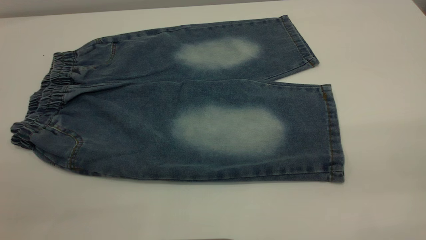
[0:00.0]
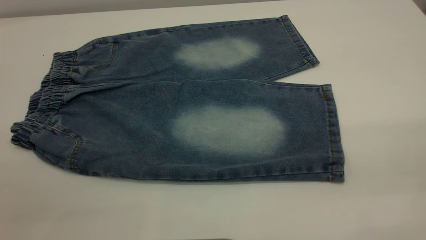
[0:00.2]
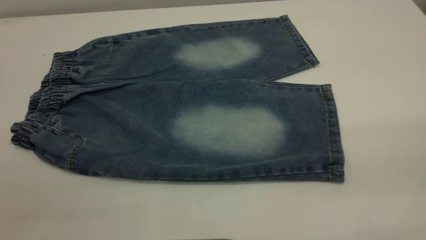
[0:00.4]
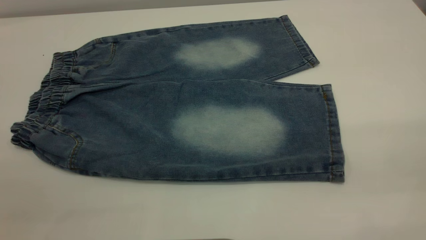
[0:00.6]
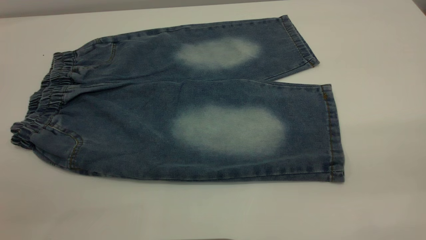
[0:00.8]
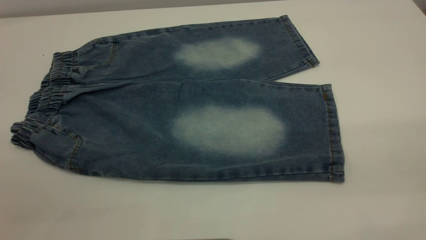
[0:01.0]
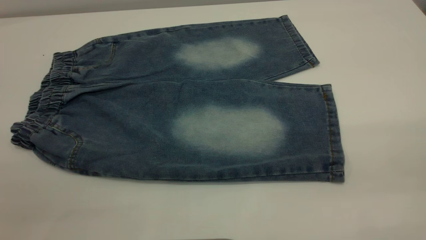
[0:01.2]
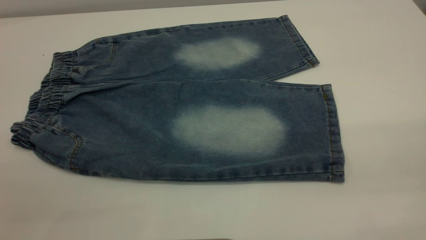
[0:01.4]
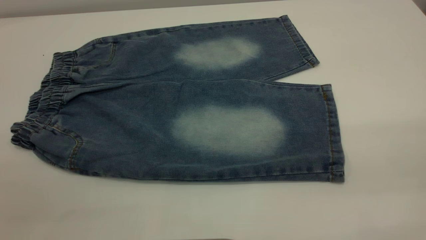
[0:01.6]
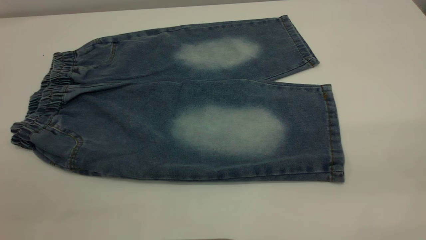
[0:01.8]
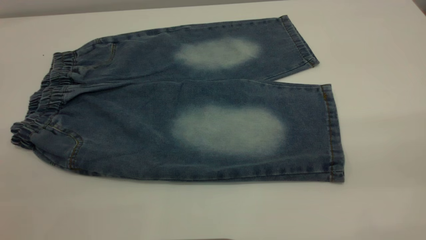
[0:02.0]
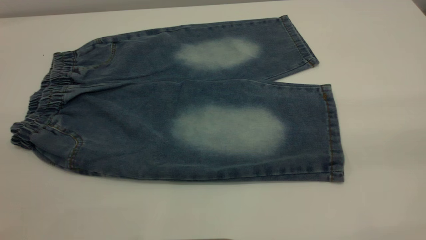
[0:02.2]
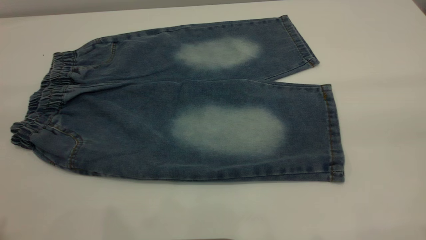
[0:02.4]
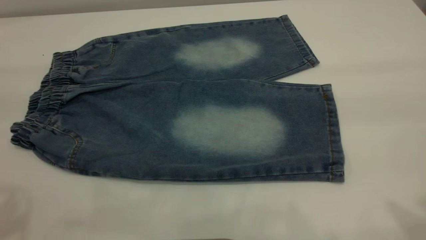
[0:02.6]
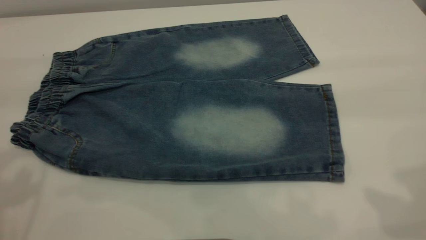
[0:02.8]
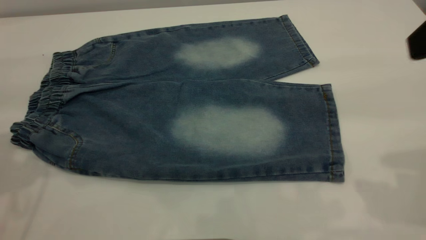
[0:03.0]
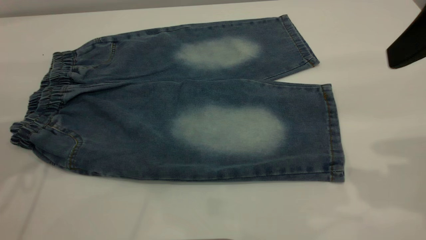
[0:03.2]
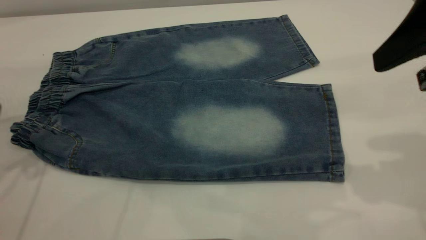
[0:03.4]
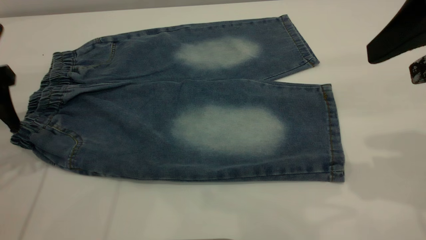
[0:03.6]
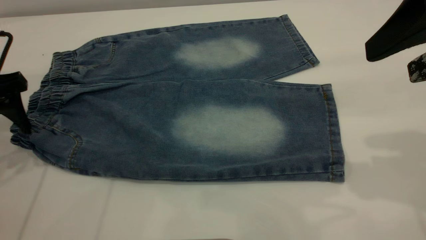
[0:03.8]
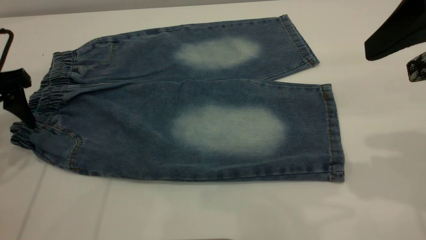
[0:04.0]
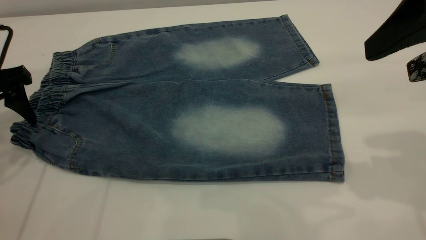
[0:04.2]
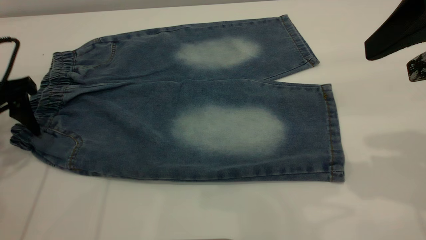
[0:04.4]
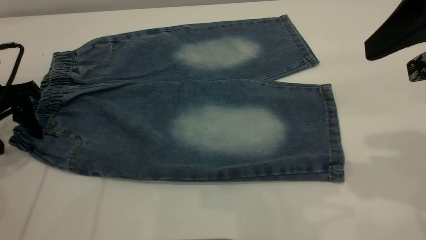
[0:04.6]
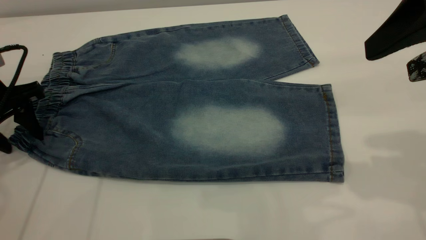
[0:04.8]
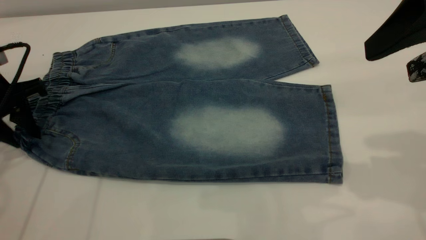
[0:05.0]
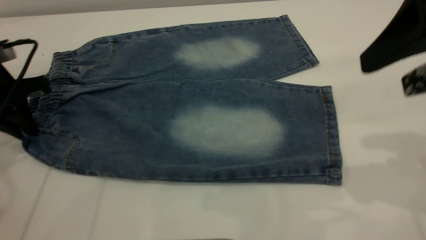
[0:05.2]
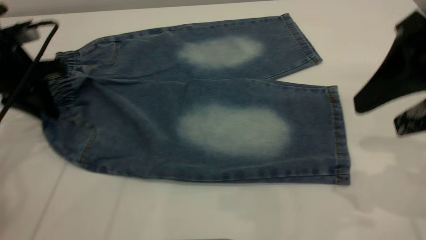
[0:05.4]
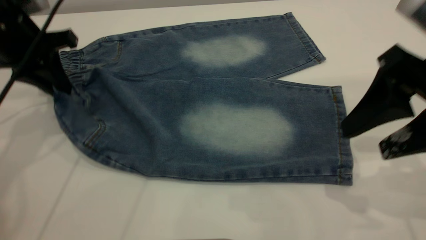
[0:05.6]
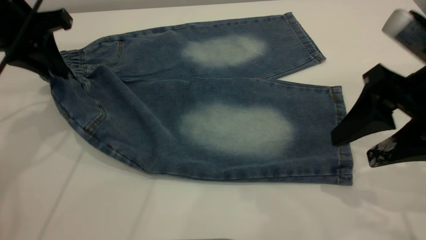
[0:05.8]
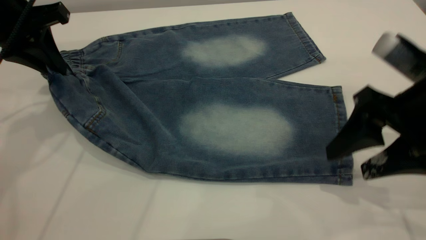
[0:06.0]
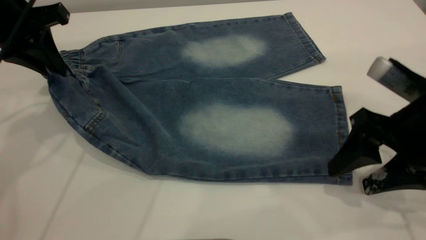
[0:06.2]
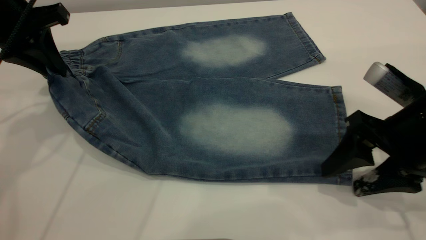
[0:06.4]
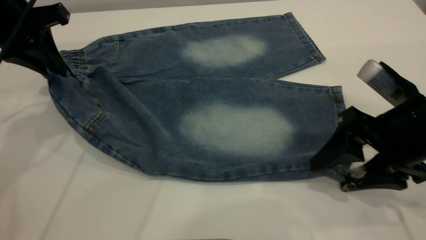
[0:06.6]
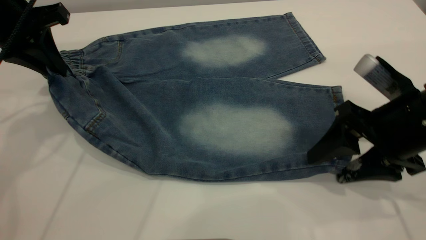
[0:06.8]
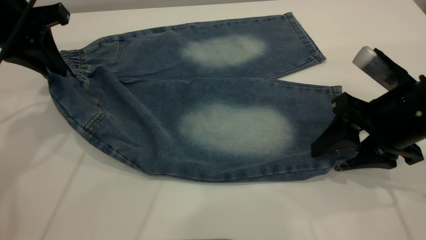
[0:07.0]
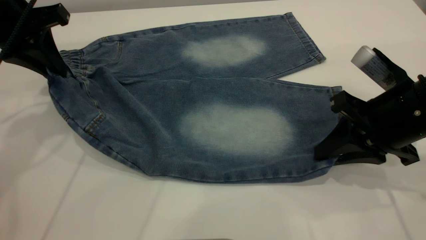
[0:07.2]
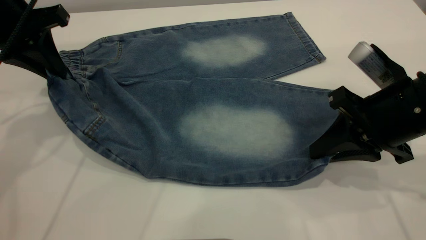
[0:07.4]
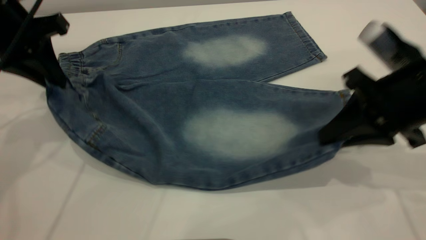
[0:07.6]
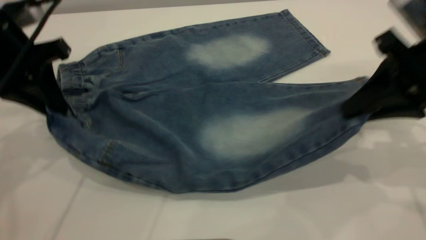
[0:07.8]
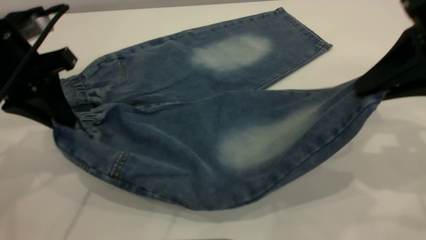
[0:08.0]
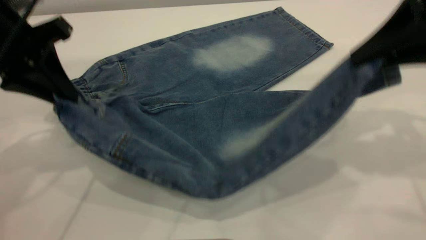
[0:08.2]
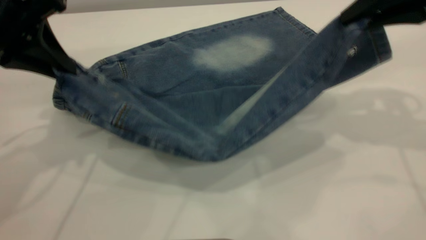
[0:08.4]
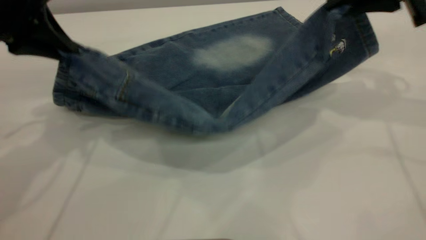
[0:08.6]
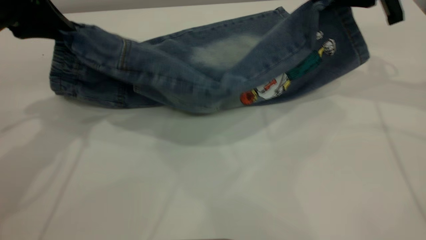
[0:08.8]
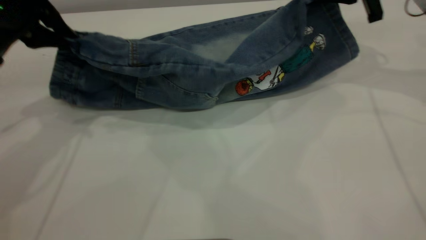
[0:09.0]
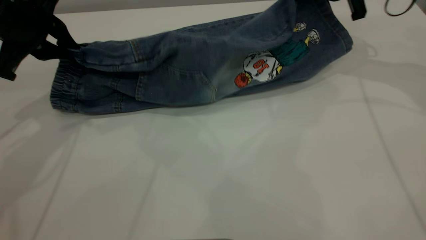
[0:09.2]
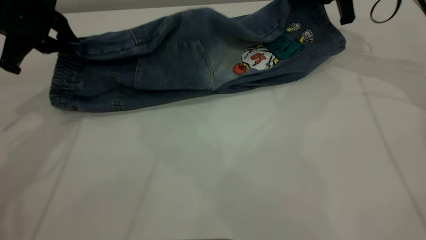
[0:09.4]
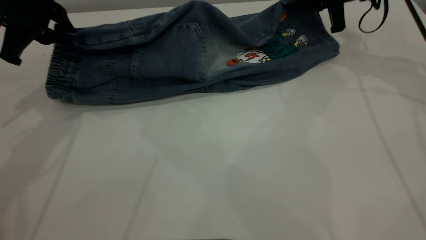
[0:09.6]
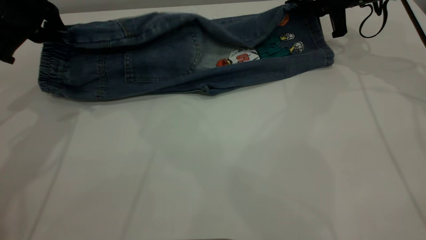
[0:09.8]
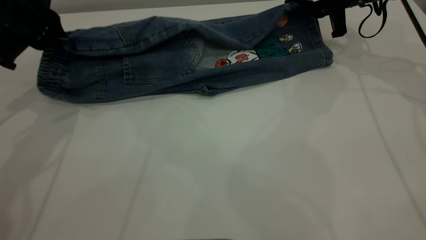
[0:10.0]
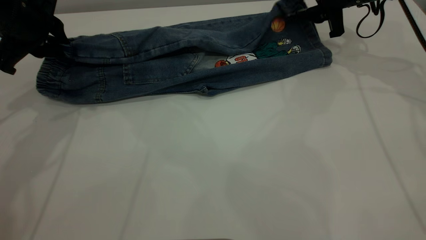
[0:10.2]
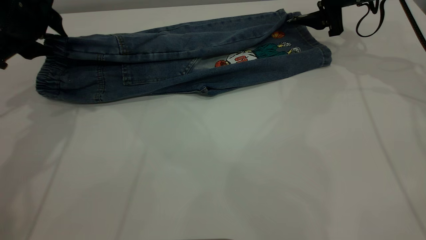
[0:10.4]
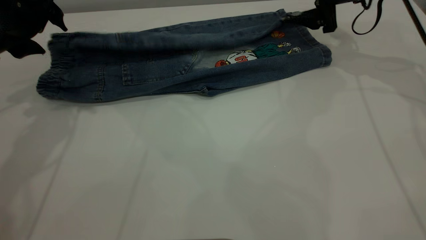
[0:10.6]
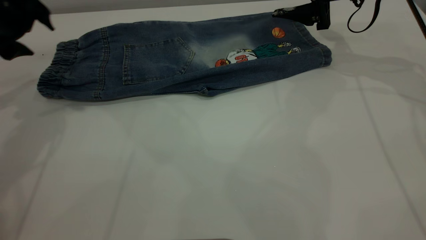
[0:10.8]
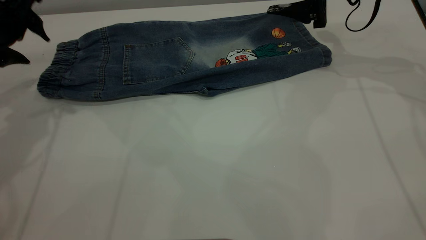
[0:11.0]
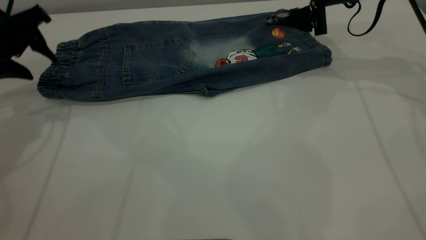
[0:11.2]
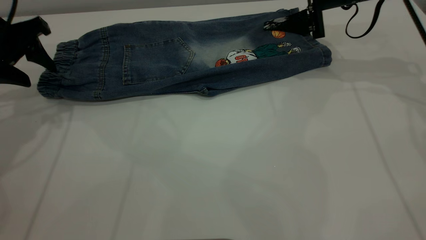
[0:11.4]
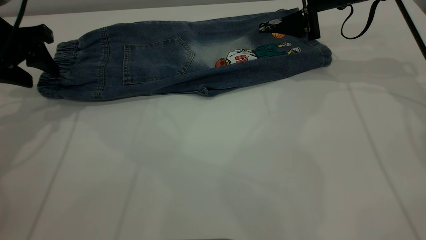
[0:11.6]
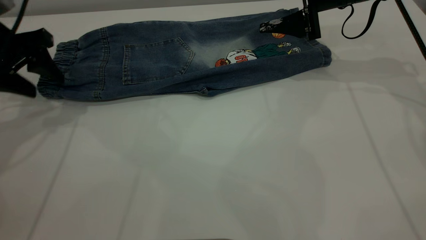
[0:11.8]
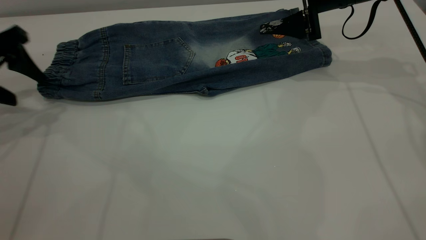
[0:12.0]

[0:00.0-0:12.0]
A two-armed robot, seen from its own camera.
Step, 0:00.0 to 0:11.8: Fold the bottom of the pants upward.
0:00.0 to 0:01.6: The two grippers keep their place.
0:03.0 to 0:04.4: The left gripper shifts about 15 cm downward.
0:04.4 to 0:06.0: The right gripper goes approximately 15 cm downward, while the left gripper shifts some 10 cm upward and to the right, and closes.
0:06.0 to 0:07.6: The right gripper closes.
0:07.6 to 0:09.0: The right gripper shifts roughly 20 cm forward.
0:09.0 to 0:10.4: The left gripper ends up about 5 cm from where it was, and opens. The right gripper moves downward and forward, approximately 10 cm, and opens up.
0:10.4 to 0:12.0: The left gripper goes some 5 cm to the left.

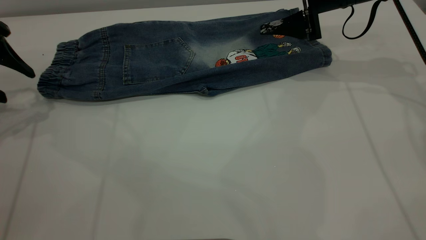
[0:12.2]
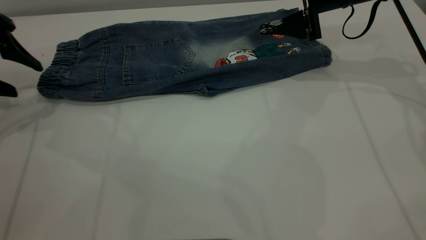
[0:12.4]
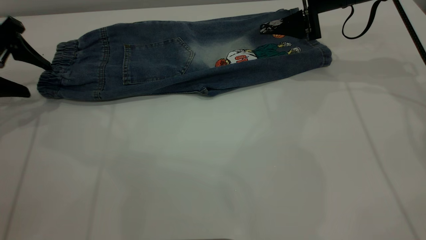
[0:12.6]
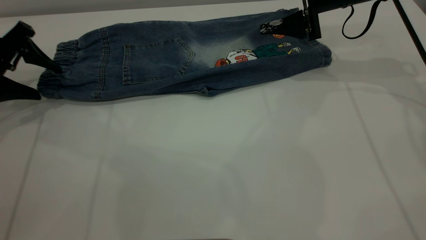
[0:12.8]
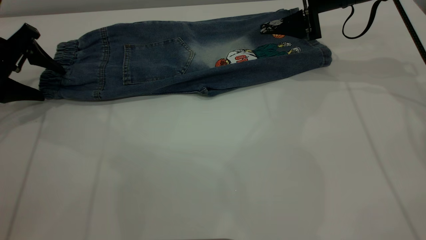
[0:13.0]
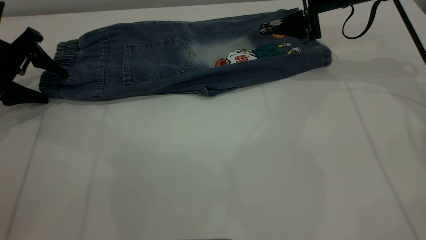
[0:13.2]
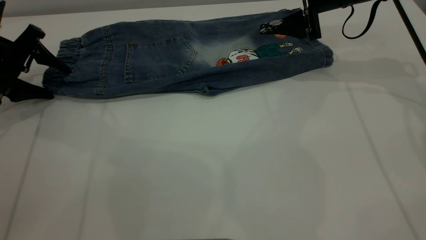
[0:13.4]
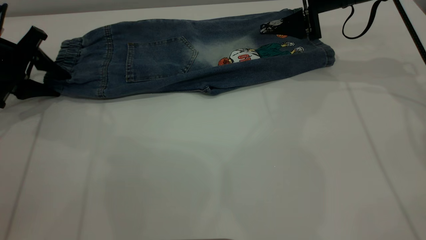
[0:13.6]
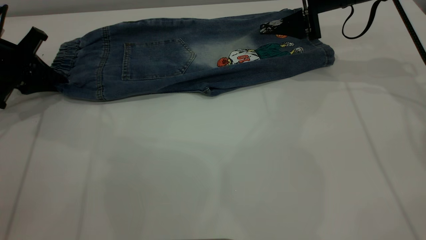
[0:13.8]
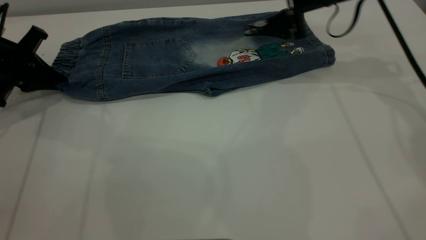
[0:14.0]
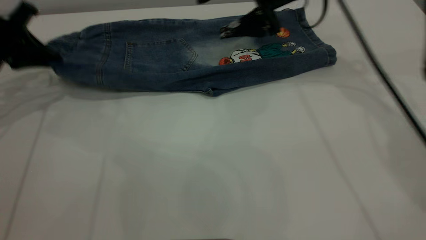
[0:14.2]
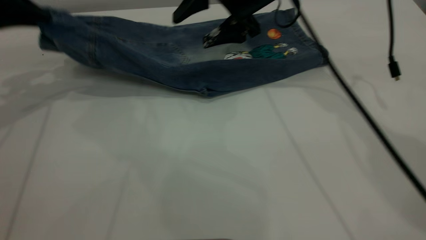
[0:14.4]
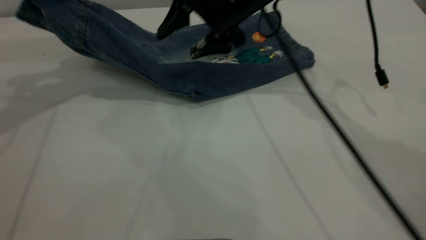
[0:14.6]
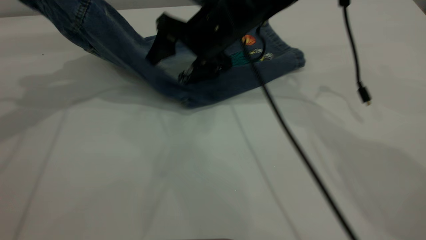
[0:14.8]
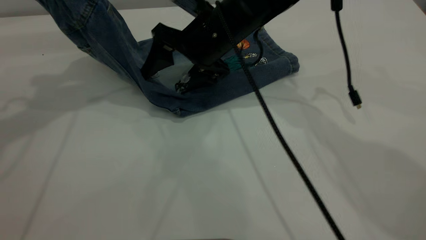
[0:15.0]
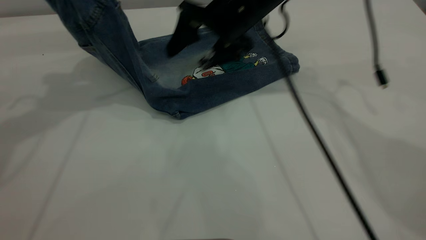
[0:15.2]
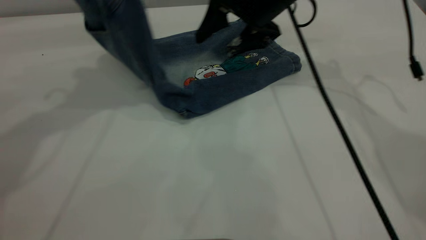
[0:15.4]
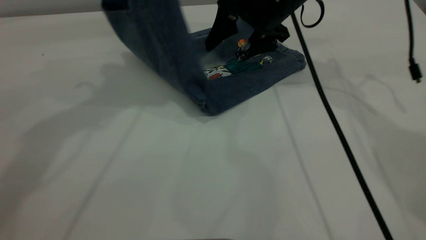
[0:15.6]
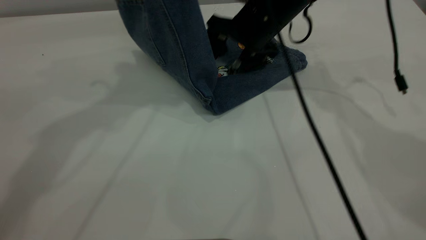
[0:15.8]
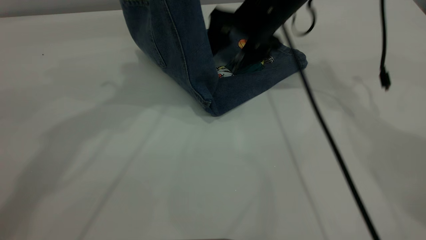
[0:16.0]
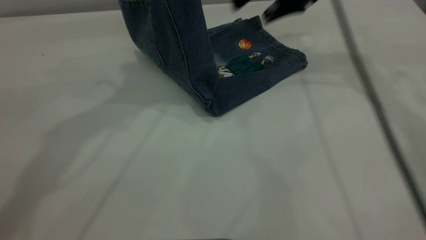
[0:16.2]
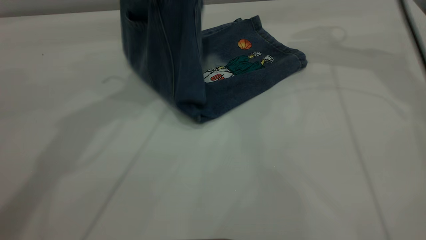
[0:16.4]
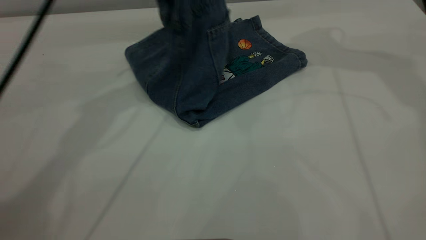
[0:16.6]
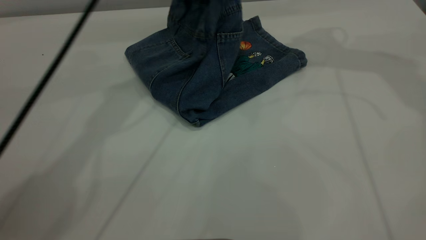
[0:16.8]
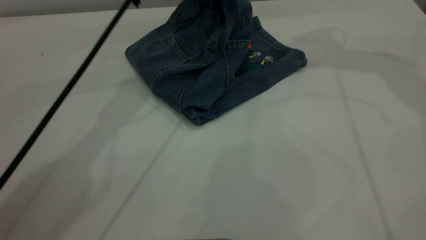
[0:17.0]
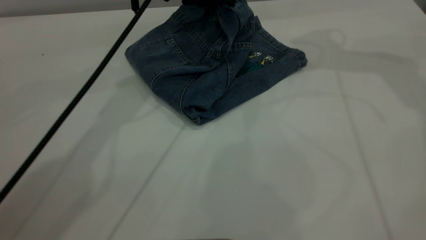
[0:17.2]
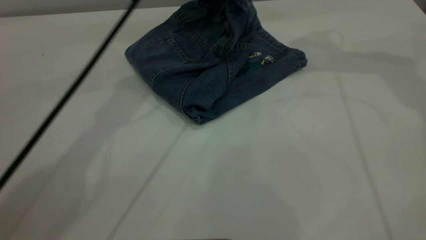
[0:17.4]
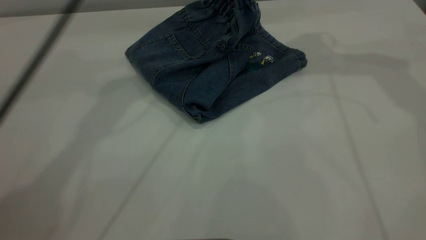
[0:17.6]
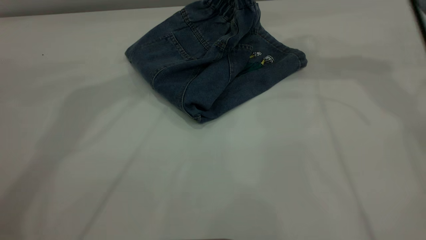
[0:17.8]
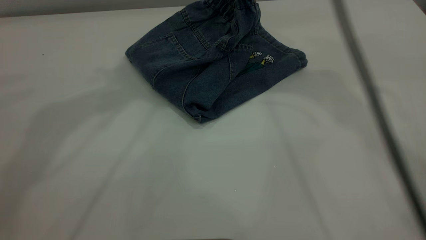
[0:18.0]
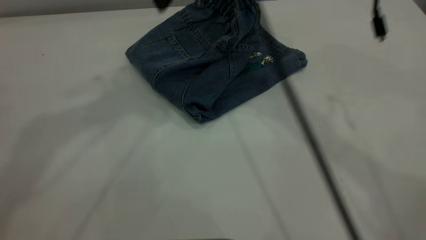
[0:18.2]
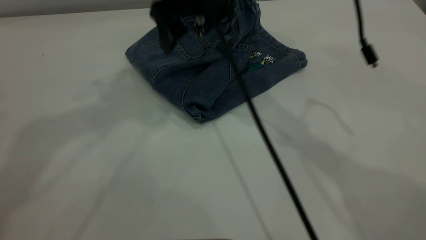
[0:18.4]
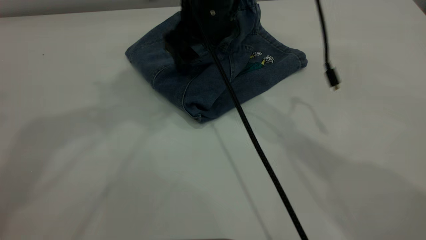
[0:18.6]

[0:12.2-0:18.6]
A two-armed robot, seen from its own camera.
Step, 0:12.2 to 0:18.2: Fold the pants from left to right.
0:12.2 to 0:13.8: The left gripper goes roughly 5 cm downward, and closes its fingers.
0:13.8 to 0:15.4: The left gripper shifts approximately 25 cm upward and to the right. The right gripper shifts approximately 10 cm to the left.
0:15.4 to 0:17.0: The right gripper heads upward and to the right, covering some 20 cm. The left gripper shifts some 20 cm to the right, downward and forward.
0:17.0 to 0:18.6: The right gripper shifts approximately 25 cm to the left and downward. The left gripper is displaced upward and backward by approximately 30 cm, and opens up.
